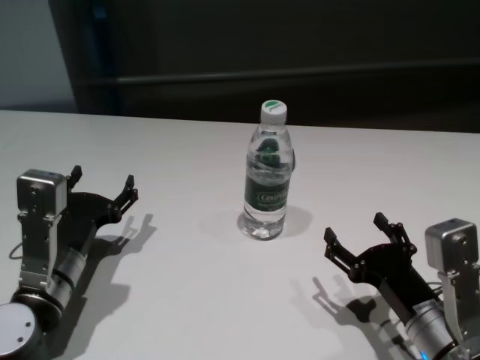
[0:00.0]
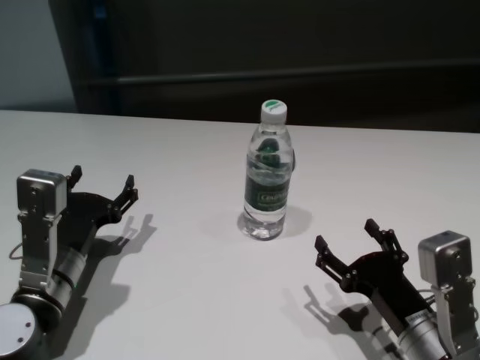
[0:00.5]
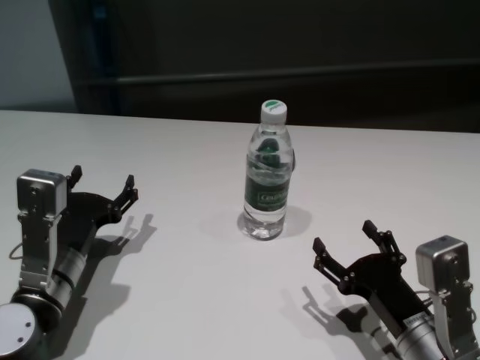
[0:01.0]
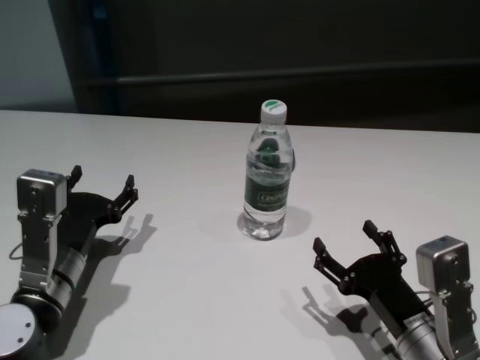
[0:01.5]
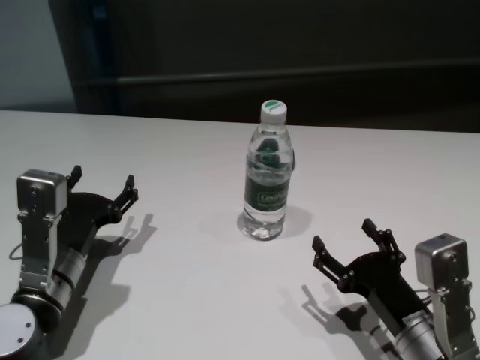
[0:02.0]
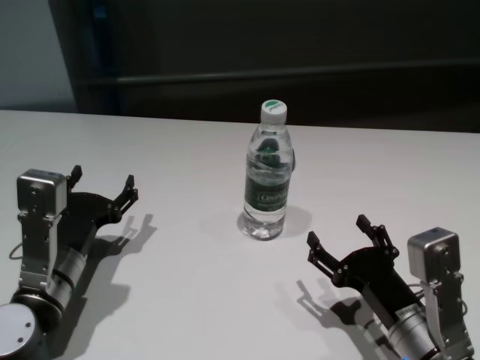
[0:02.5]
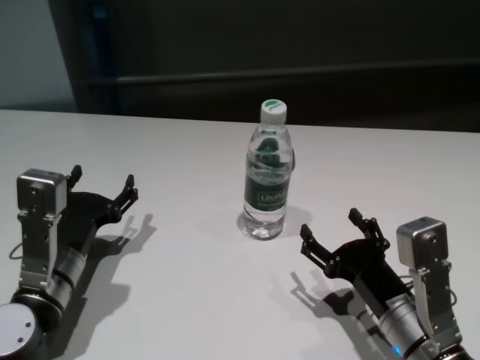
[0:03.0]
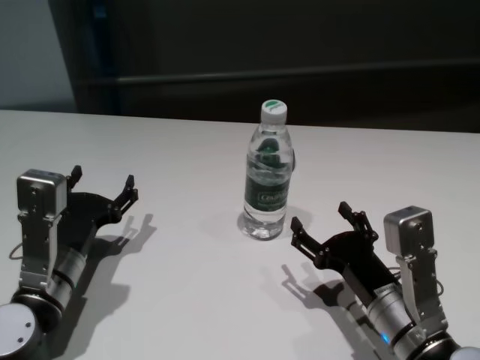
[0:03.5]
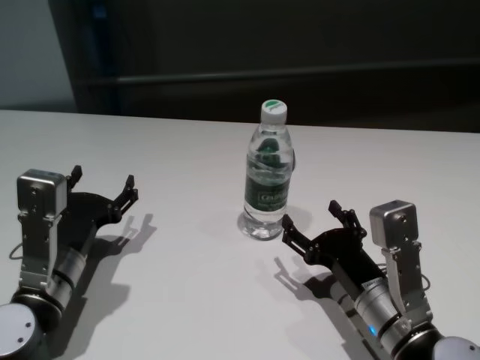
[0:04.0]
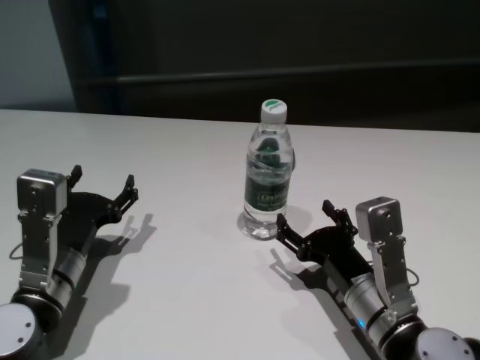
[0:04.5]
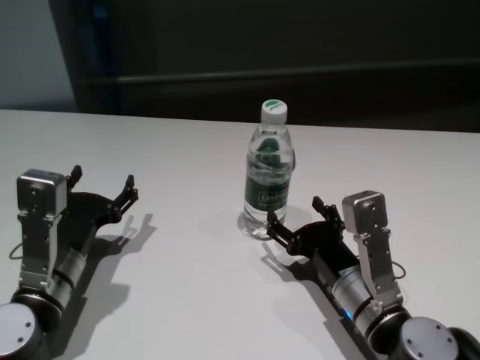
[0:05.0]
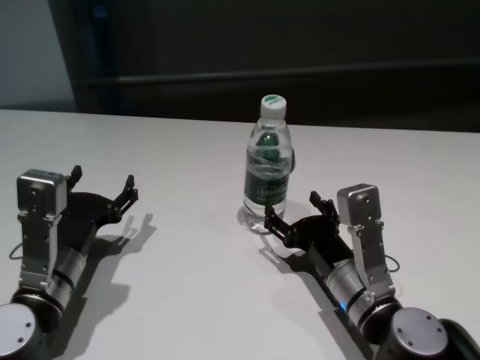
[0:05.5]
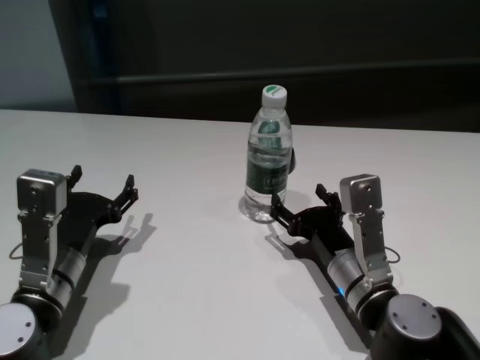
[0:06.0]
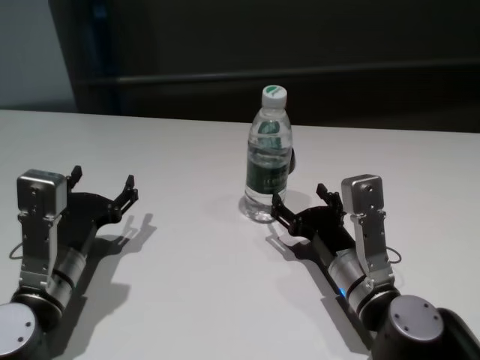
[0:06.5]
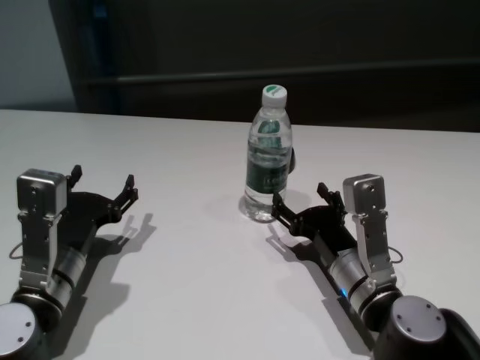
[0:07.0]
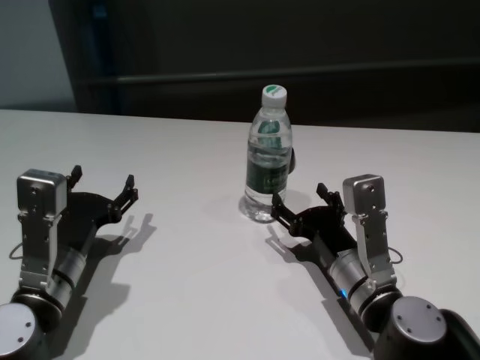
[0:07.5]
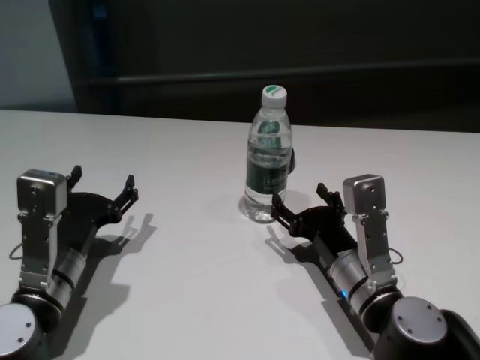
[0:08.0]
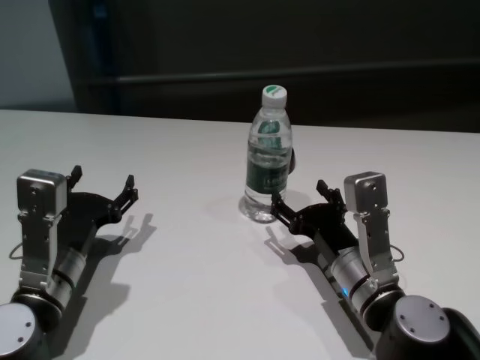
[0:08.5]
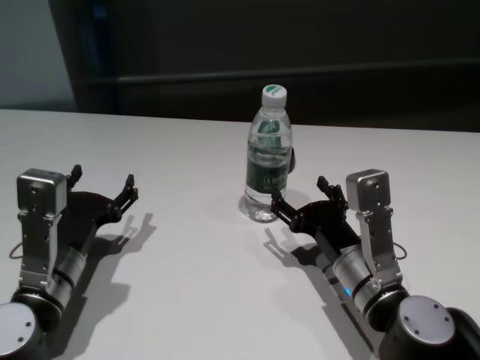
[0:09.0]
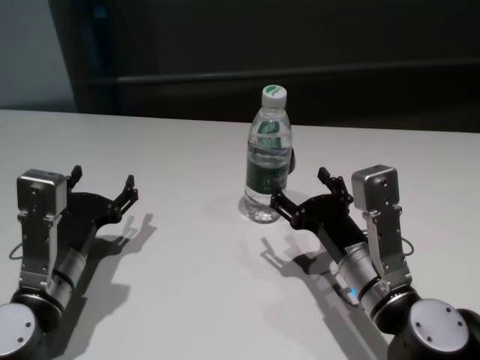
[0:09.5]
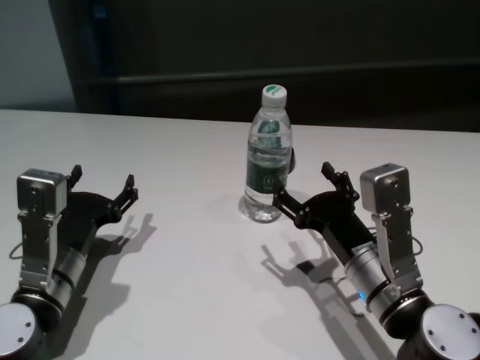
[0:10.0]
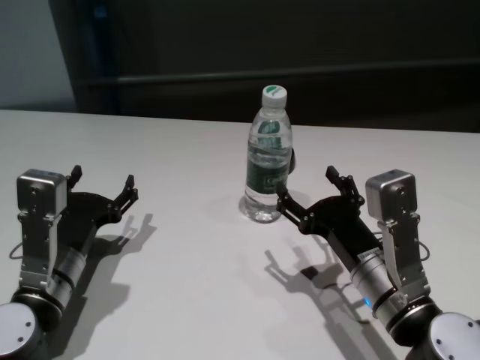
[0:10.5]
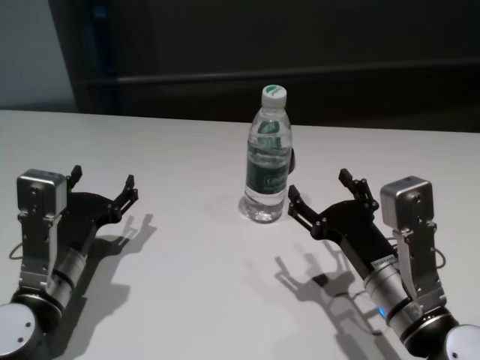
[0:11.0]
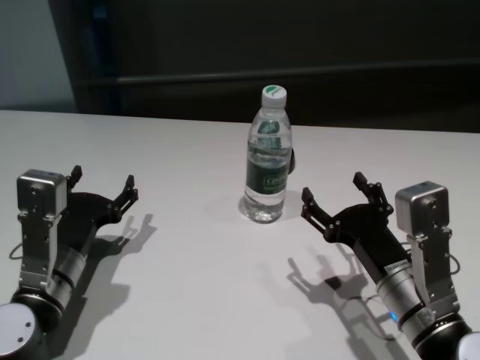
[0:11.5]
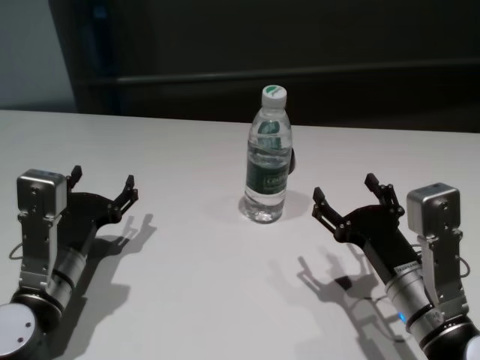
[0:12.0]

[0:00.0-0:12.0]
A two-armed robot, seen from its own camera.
Task of the whole recording: return to a safe position after touching an obstacle with your arm on the white table.
Step, 0:00.0 to 0:09.5: Touch the bottle with right gripper.
